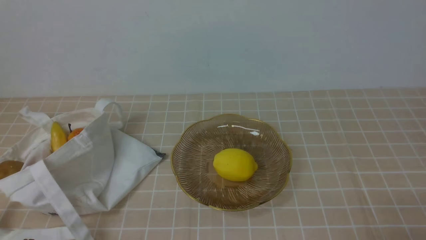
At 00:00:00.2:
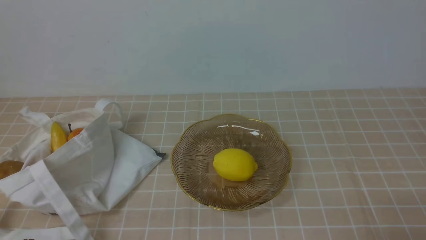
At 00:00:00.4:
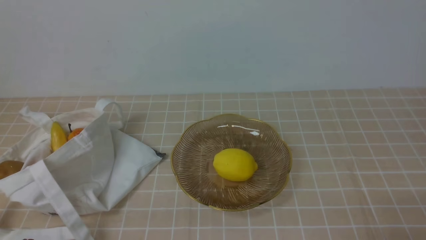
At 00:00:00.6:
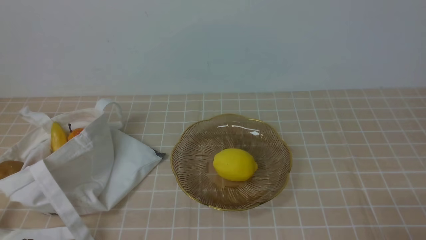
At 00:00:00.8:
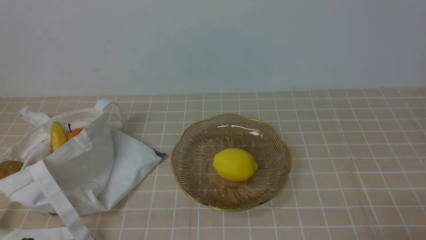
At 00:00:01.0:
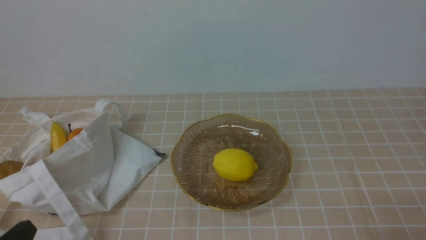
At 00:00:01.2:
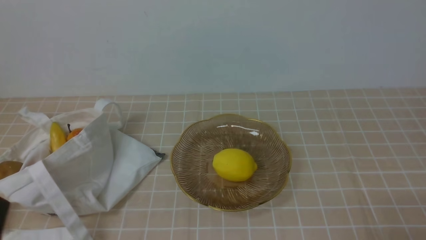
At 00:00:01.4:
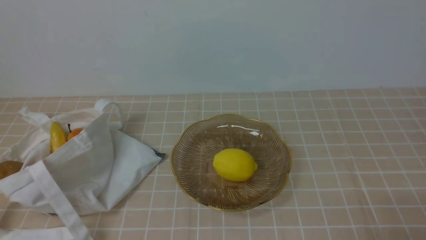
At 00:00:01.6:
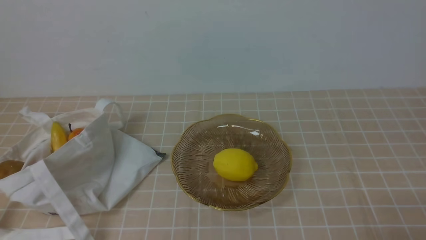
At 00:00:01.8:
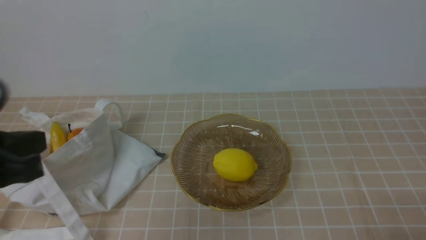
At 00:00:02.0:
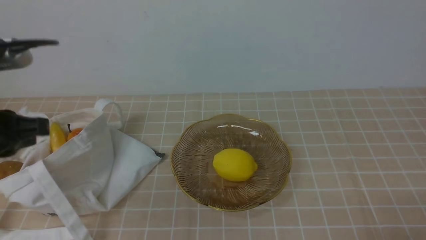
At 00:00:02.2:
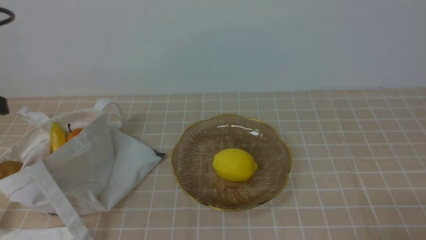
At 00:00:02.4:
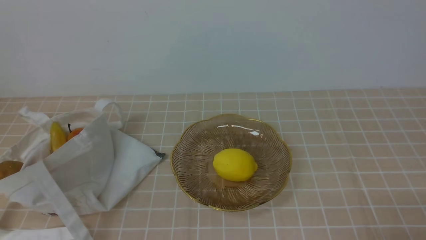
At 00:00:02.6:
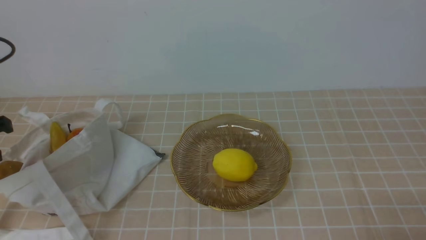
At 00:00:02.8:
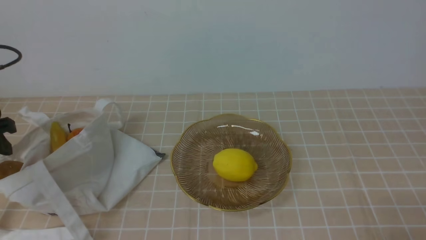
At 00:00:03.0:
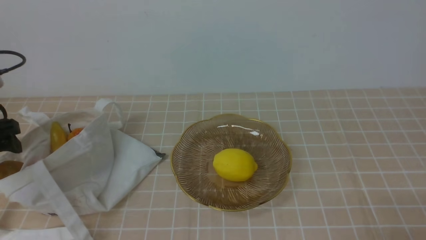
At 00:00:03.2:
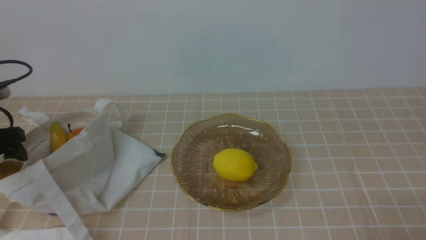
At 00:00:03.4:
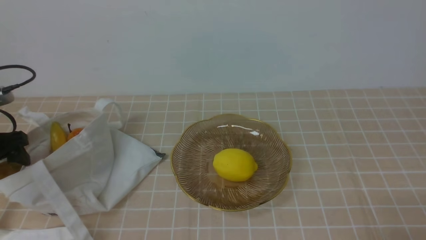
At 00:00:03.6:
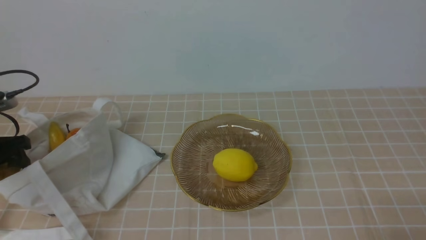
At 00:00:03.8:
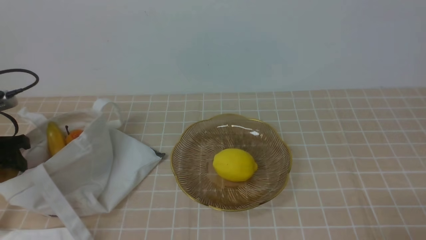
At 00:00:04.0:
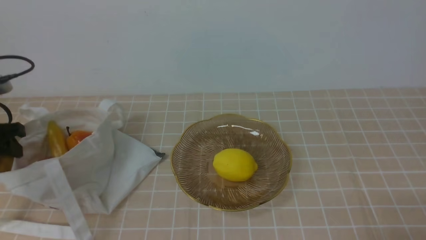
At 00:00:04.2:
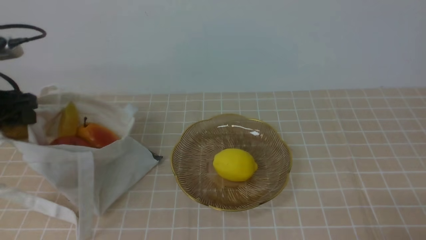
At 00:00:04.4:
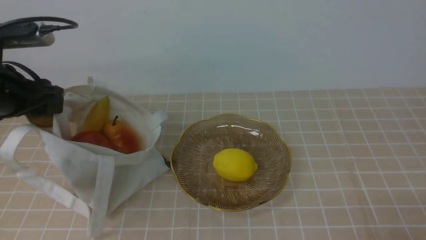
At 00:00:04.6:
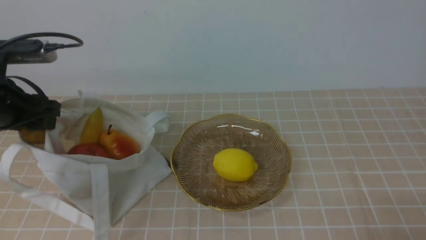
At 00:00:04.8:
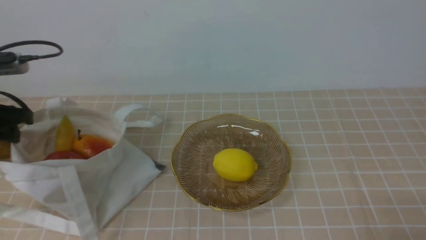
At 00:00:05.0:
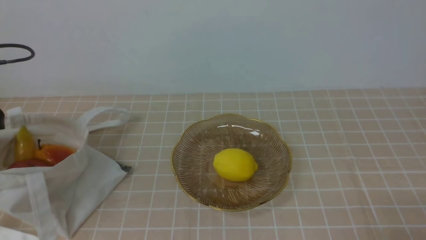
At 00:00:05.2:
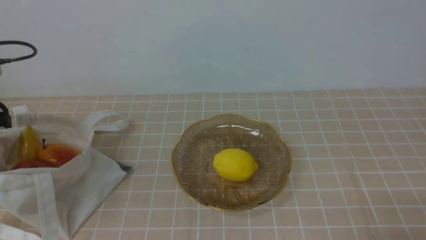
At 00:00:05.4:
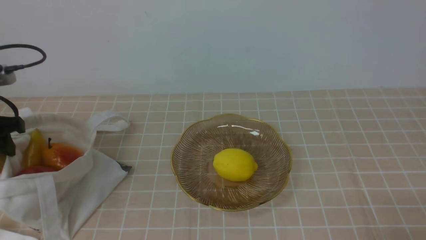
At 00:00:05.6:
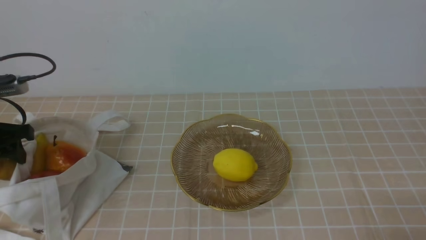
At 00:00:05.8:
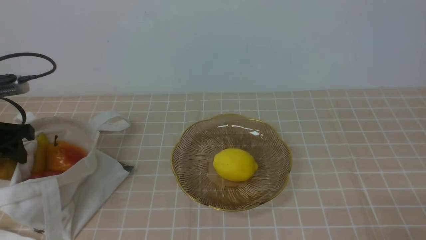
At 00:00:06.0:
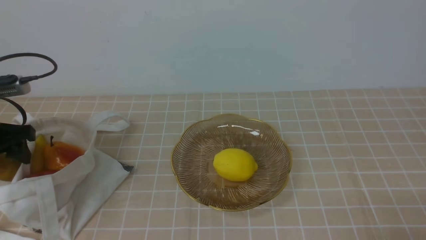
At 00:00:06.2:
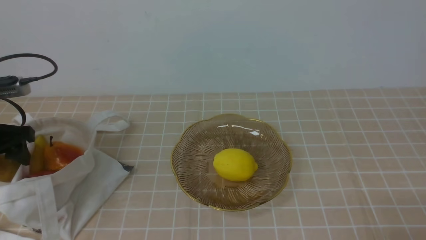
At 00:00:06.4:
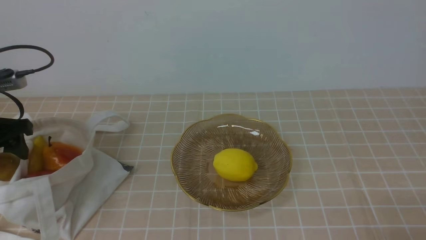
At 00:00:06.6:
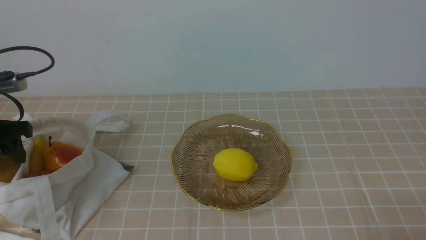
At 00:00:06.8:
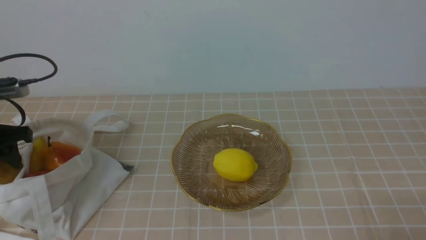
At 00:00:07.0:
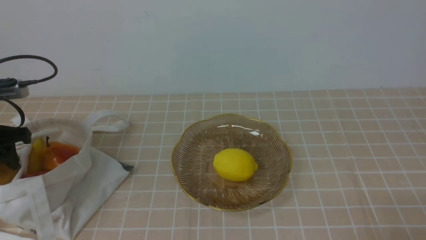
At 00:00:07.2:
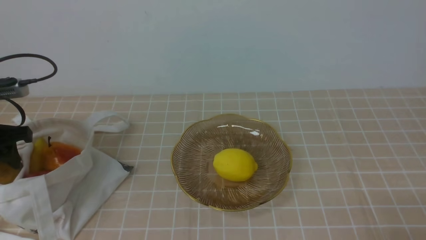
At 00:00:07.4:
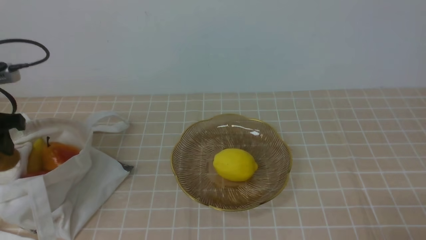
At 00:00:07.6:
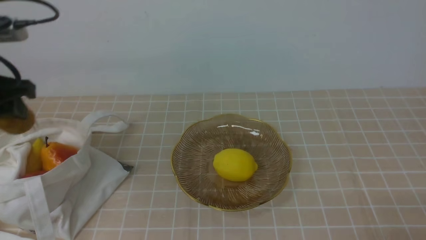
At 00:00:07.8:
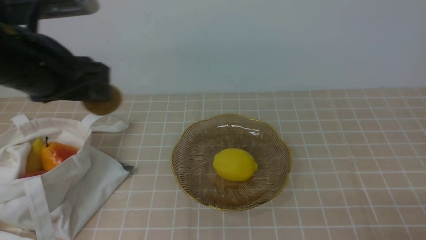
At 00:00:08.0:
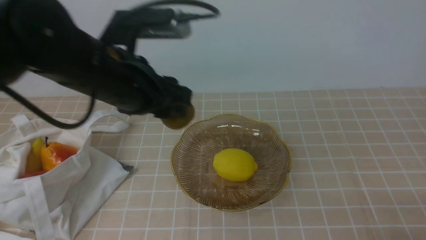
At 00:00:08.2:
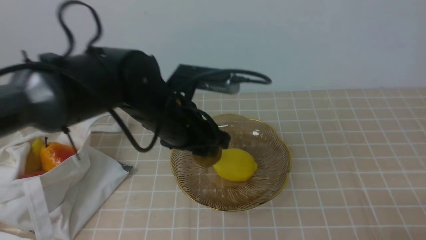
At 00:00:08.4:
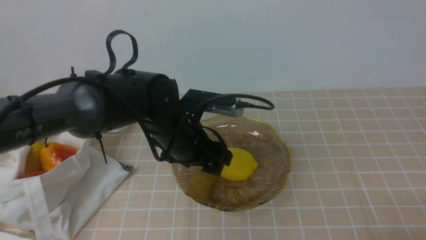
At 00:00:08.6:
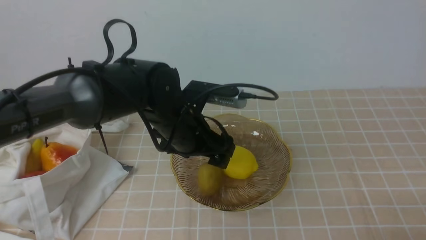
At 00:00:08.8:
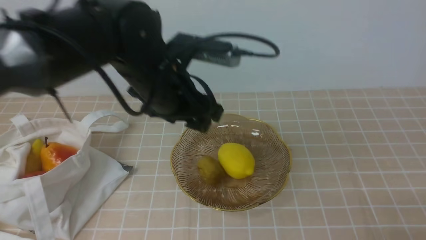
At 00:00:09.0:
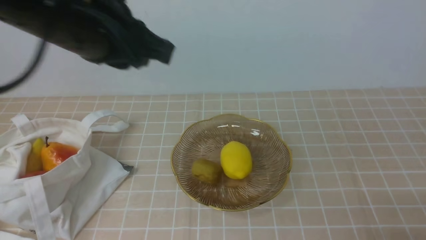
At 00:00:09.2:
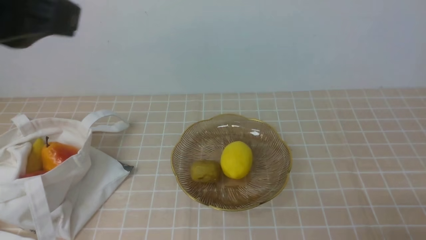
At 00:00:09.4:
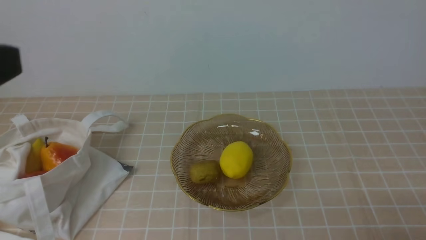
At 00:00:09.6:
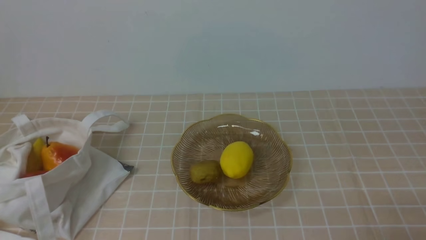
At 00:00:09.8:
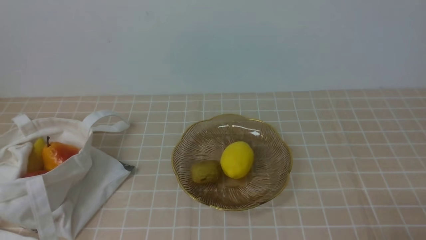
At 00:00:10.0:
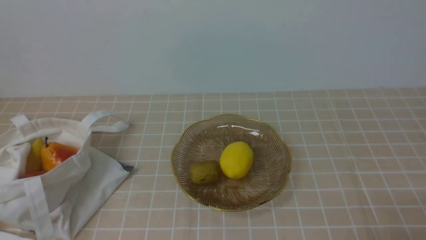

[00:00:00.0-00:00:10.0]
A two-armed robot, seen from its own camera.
Step, 00:00:00.0 to 00:00:04.0: use the left arm to grab a kiwi from the bag.
Step, 00:00:04.2 to 00:00:08.4: use the left arm to put the kiwi into the empty plate on the right.
00:00:01.4 to 00:00:02.8: The left gripper moves forward and to the left, about 25 cm, and opens.
00:00:02.8 to 00:00:04.2: The left gripper ends up approximately 5 cm from where it was.
00:00:04.2 to 00:00:05.8: The grippers move only a little.
00:00:05.8 to 00:00:07.2: Both grippers stay put.
00:00:07.2 to 00:00:08.6: The left gripper is displaced to the right by some 30 cm, and opens.
00:00:08.6 to 00:00:10.0: The left gripper shifts about 35 cm backward and to the left, and closes its fingers.

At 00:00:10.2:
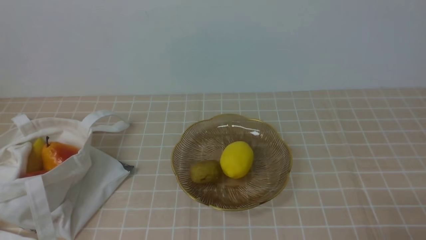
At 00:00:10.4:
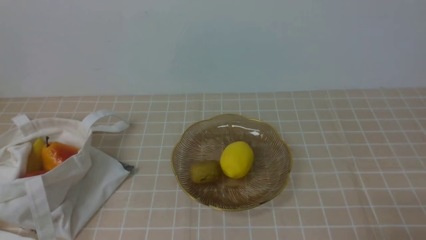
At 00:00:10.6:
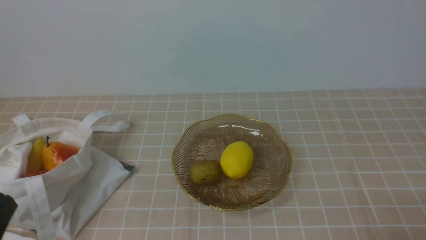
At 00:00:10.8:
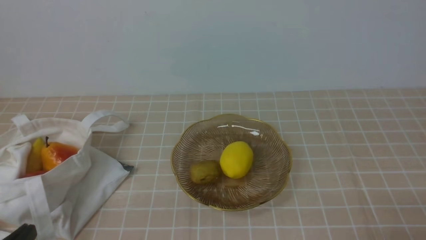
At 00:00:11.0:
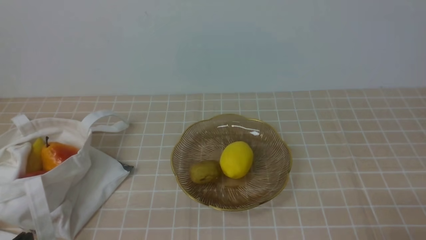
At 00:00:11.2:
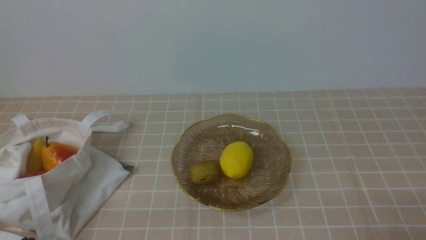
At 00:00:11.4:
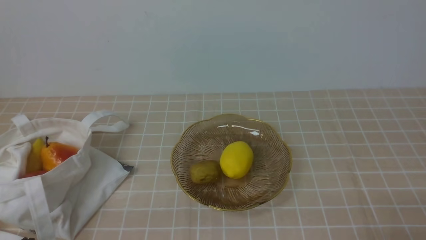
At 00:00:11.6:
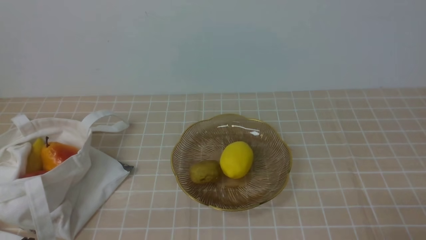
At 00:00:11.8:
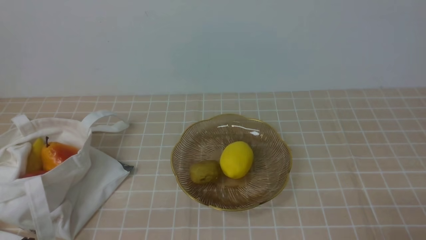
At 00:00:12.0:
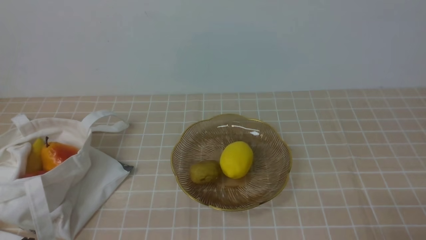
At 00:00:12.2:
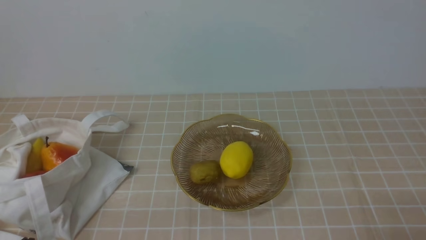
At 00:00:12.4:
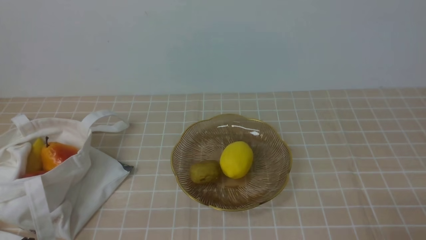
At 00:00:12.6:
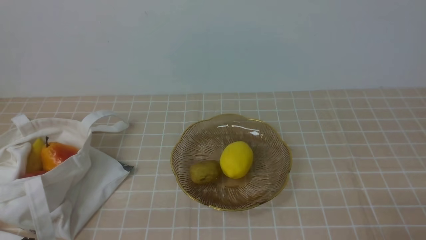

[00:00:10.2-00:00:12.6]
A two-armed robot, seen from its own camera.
00:00:11.4 to 00:00:12.6: Both grippers stay about where they are.
